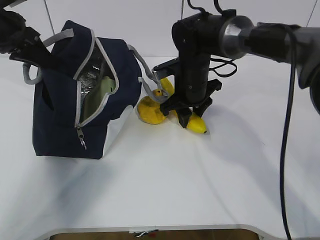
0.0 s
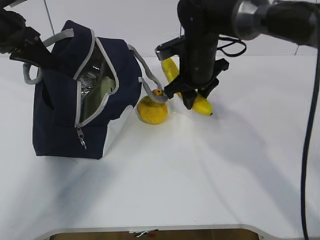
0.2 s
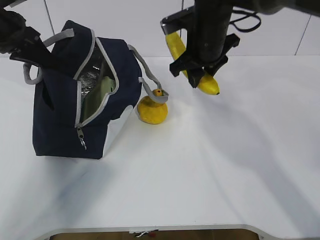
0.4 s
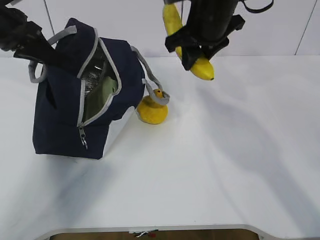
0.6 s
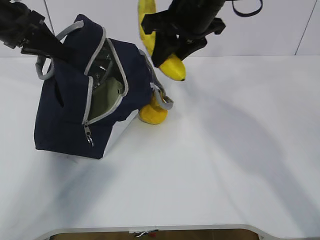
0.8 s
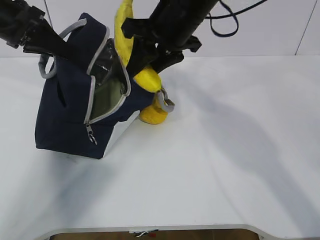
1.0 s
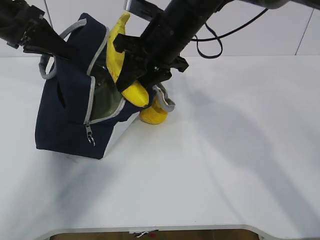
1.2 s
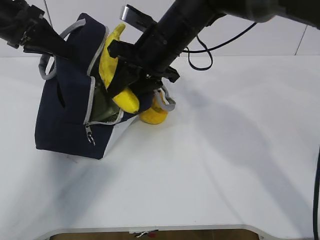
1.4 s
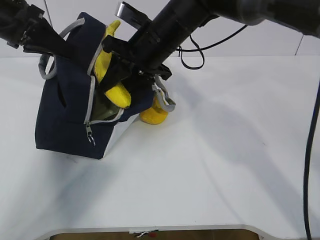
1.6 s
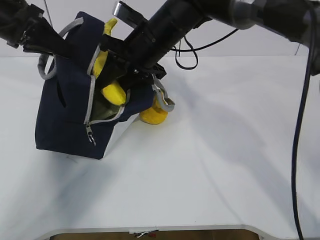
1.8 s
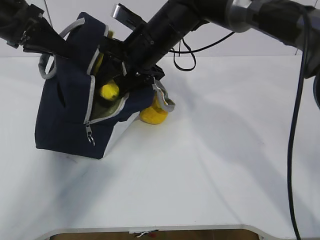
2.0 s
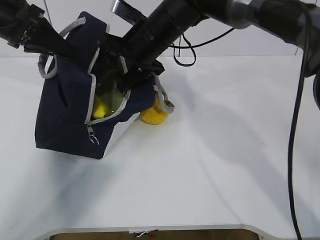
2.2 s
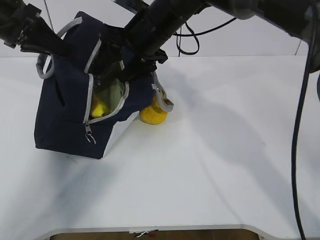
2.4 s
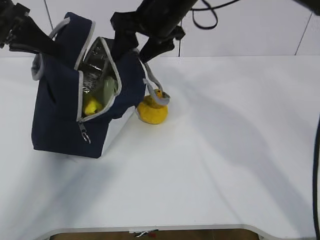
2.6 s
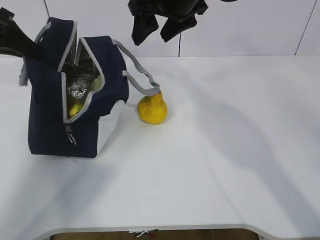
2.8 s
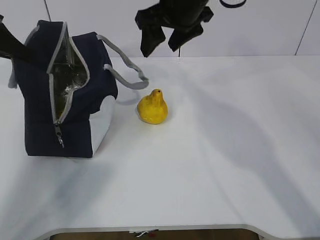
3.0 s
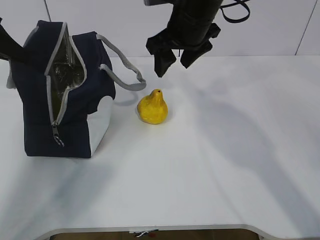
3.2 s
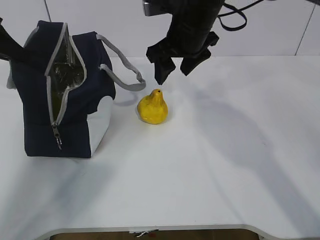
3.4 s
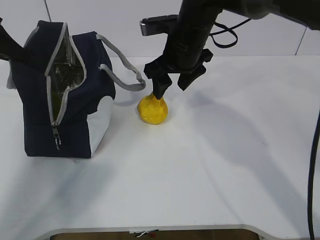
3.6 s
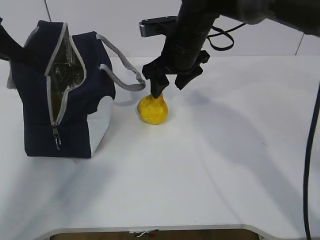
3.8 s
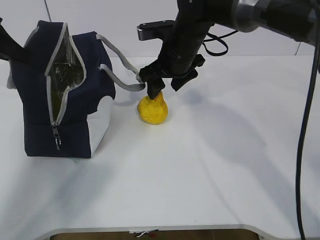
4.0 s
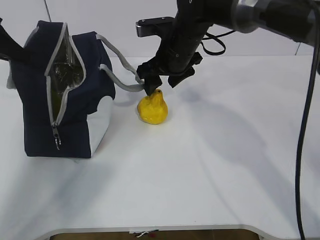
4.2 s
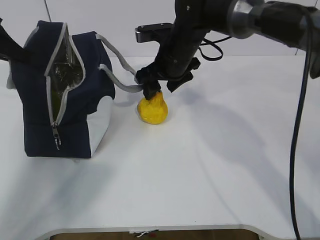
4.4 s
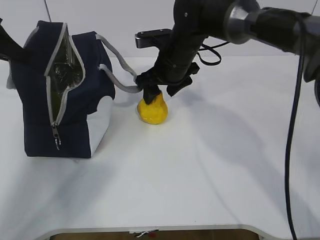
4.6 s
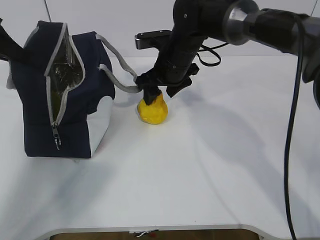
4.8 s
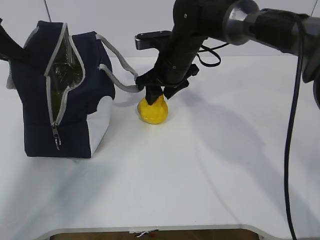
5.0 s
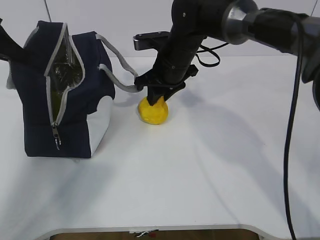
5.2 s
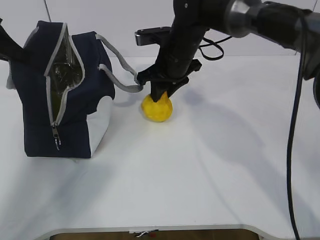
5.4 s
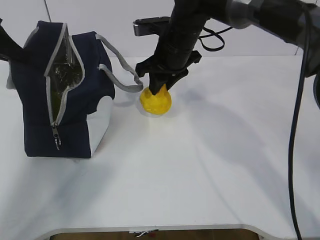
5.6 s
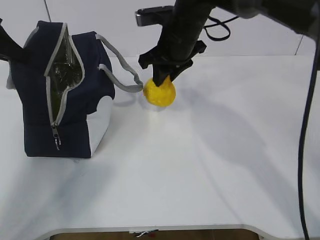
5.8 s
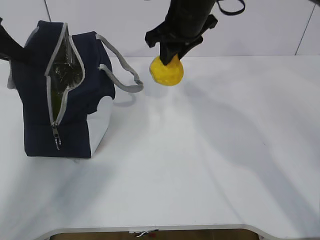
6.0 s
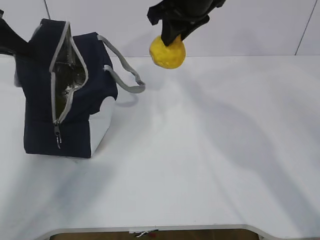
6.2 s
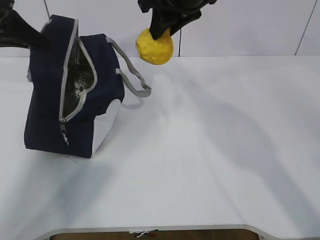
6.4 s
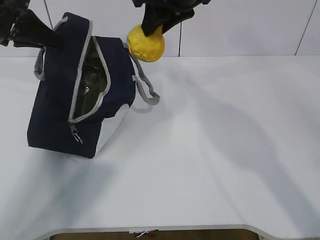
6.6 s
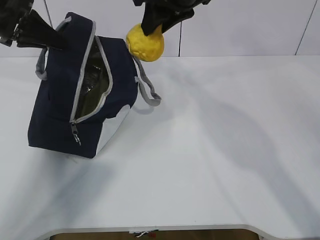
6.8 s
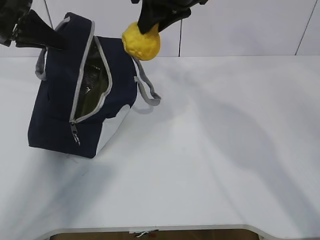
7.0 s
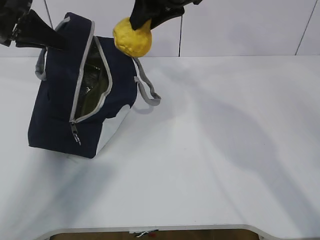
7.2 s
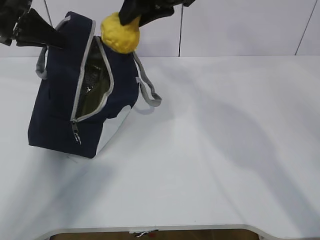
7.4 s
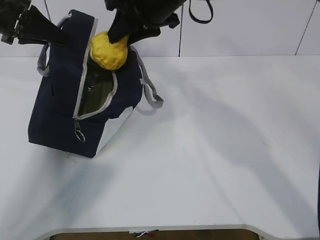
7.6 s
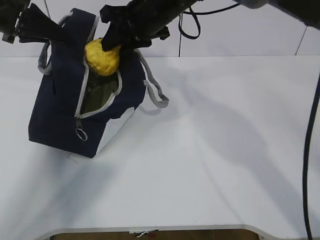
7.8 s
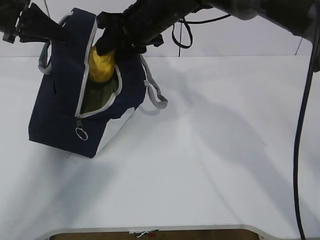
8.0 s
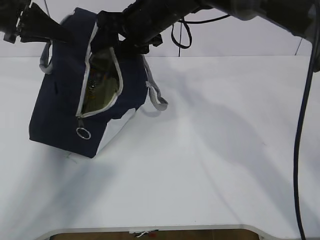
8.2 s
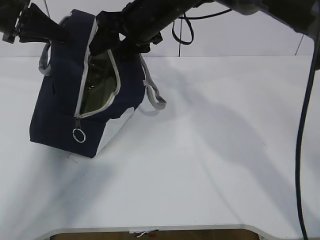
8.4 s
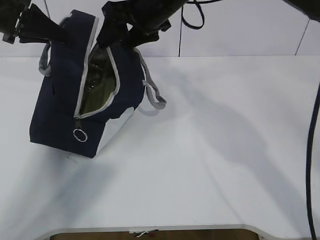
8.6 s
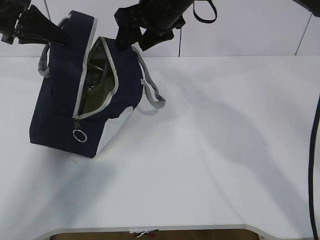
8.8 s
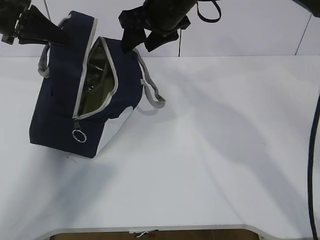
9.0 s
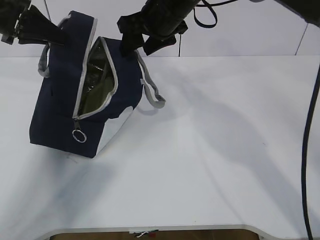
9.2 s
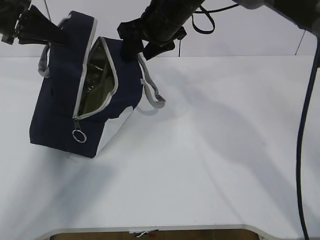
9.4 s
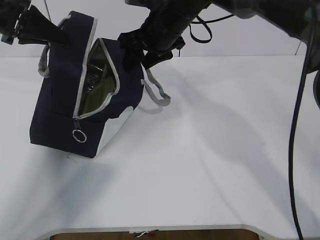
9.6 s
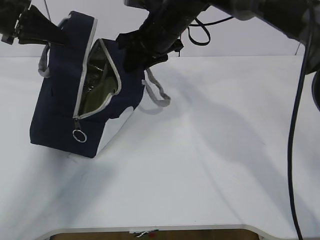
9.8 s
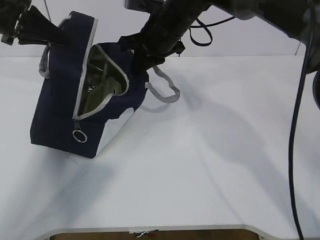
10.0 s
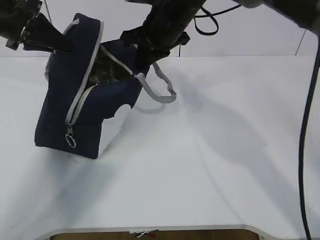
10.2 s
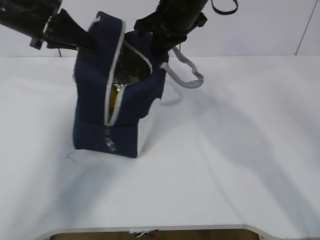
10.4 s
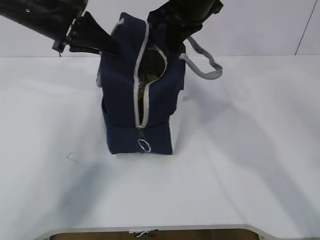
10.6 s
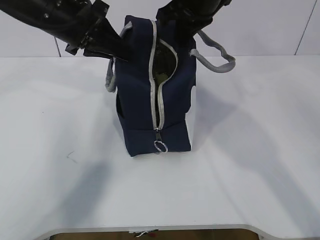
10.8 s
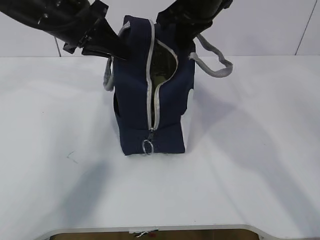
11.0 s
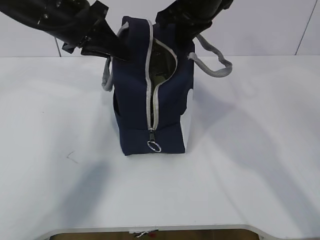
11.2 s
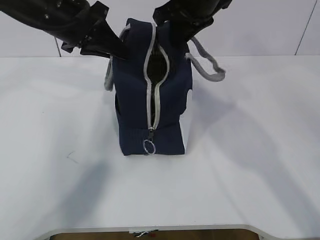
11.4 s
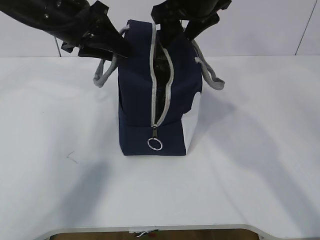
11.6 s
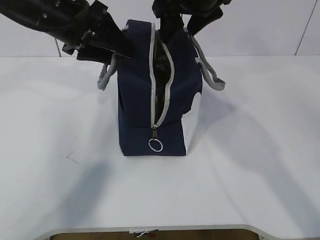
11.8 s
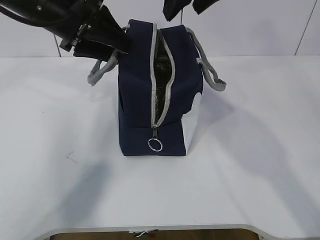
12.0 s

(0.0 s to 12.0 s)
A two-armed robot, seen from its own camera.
Step, 0.4 s - 2.6 s: Secure the lunch bag with your left hand.
Step, 3.0 s - 4.2 s: Grab the lunch bag with your right hand.
Step, 4.4 s - 5.6 s: Move the lunch bag to the right.
0.0 s - 1.6 s: The right gripper heads upward and to the left, covering about 10 cm.
1.6 s - 3.0 s: The left gripper moves to the left, roughly 10 cm, while the right gripper is displaced upward by roughly 5 cm, and opens.
3.0 s - 4.4 s: The right gripper shifts about 10 cm downward.
4.4 s - 6.0 s: The right gripper is displaced upward by about 10 cm, and closes up.
6.0 s - 7.6 s: The left gripper is displaced to the right by some 5 cm.
7.6 s - 9.0 s: The right gripper opens up.
9.0 s - 10.4 s: The right gripper closes. Meanwhile the left gripper travels to the right by some 5 cm.
10.4 s - 12.0 s: The left gripper is displaced to the right by roughly 5 cm, and opens. The right gripper moves upward, about 10 cm, and opens its fingers.

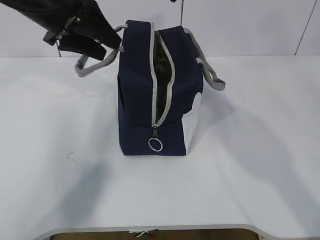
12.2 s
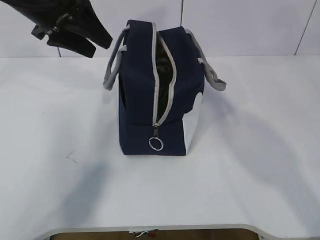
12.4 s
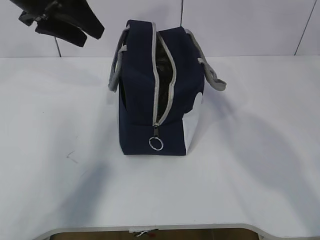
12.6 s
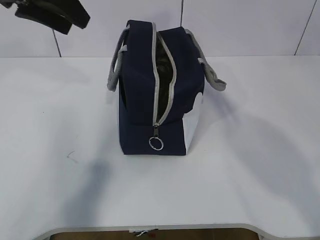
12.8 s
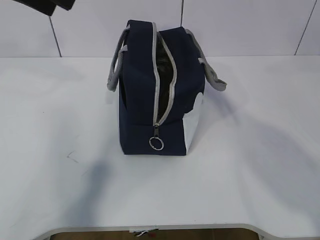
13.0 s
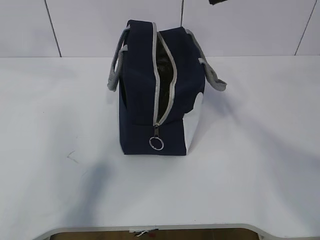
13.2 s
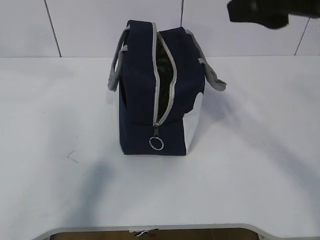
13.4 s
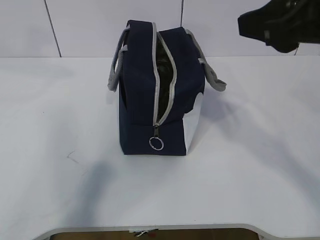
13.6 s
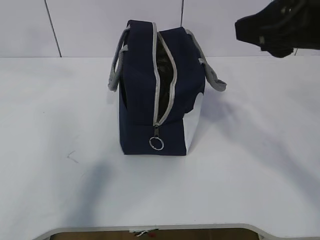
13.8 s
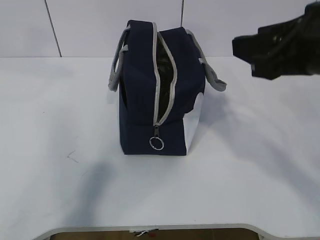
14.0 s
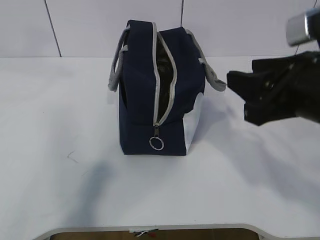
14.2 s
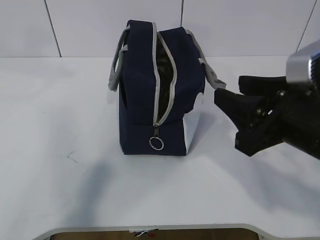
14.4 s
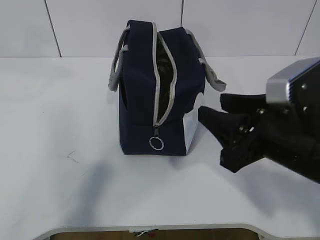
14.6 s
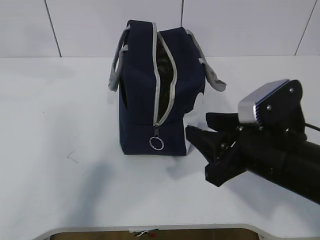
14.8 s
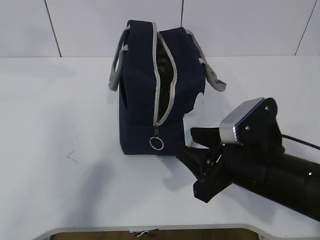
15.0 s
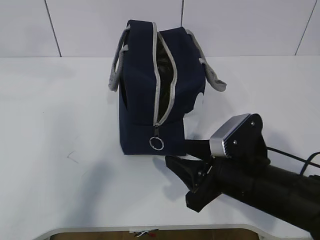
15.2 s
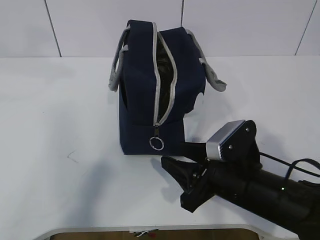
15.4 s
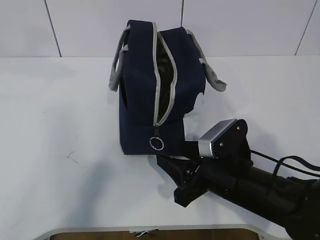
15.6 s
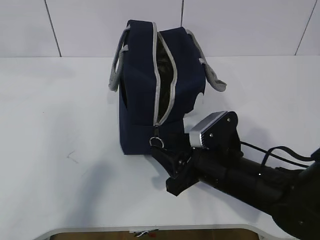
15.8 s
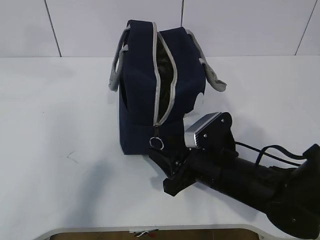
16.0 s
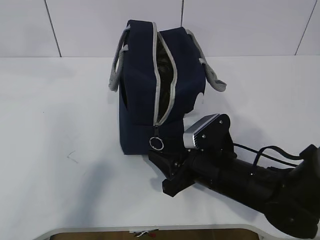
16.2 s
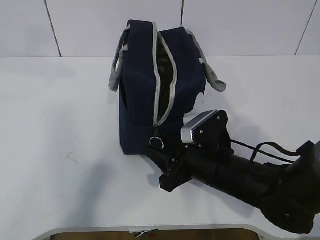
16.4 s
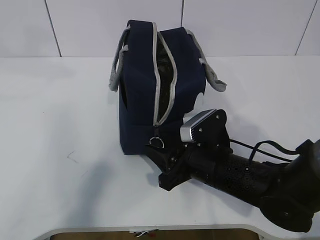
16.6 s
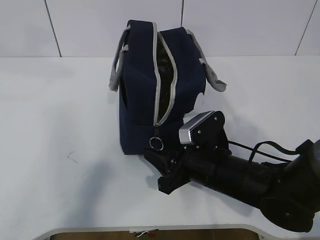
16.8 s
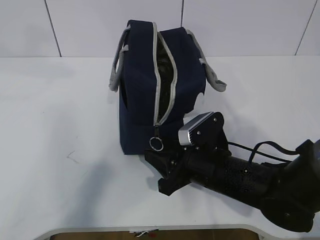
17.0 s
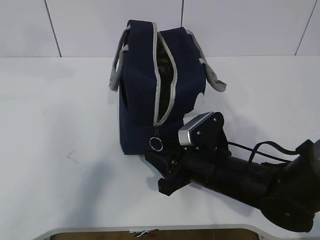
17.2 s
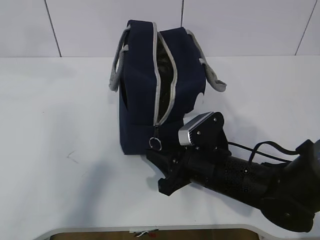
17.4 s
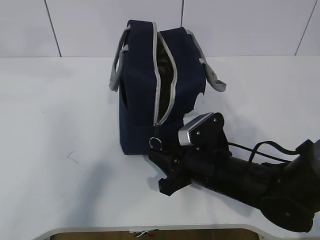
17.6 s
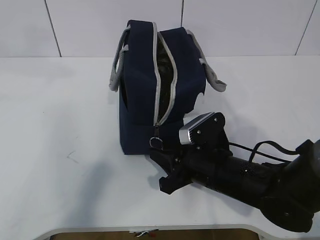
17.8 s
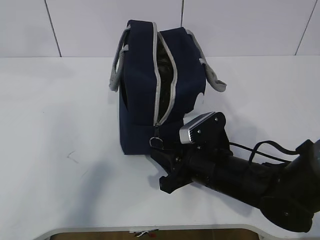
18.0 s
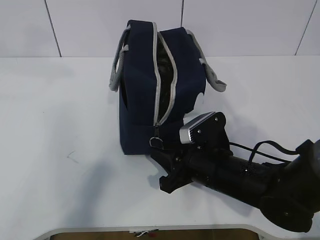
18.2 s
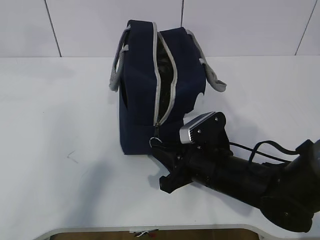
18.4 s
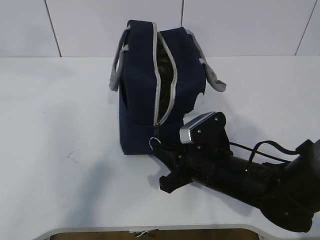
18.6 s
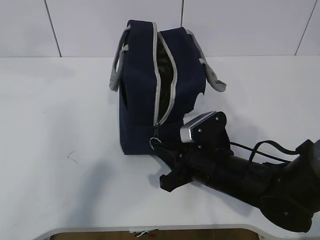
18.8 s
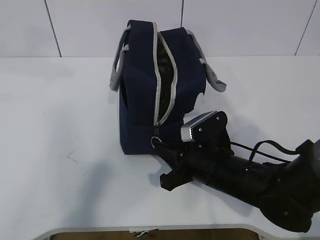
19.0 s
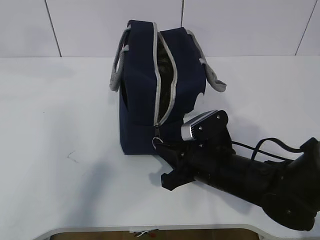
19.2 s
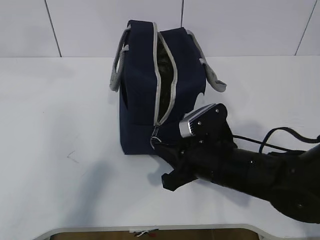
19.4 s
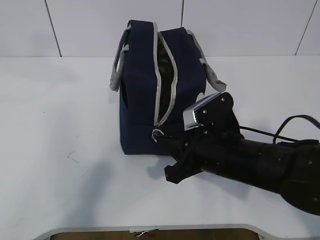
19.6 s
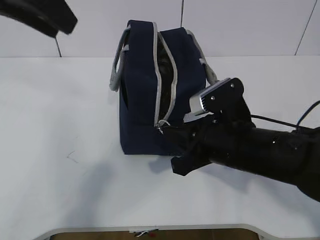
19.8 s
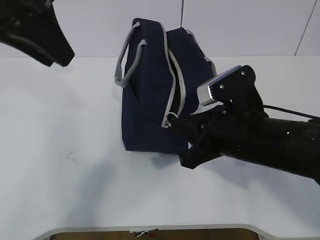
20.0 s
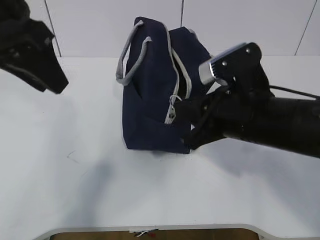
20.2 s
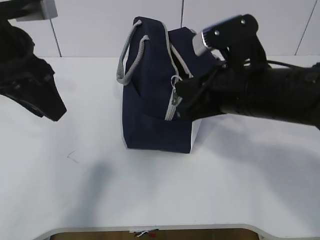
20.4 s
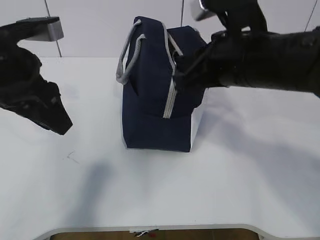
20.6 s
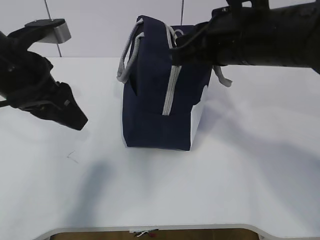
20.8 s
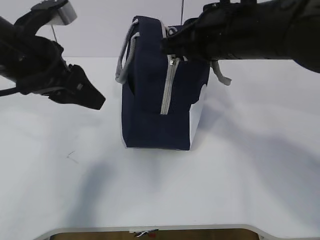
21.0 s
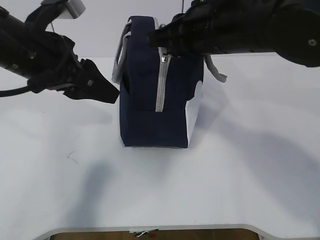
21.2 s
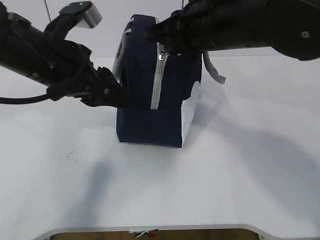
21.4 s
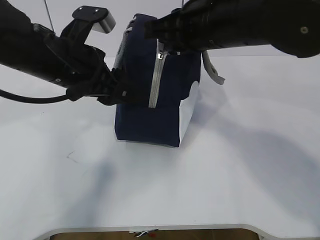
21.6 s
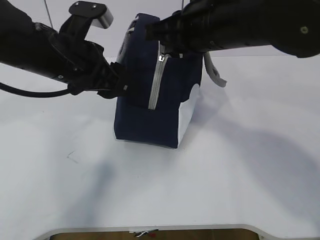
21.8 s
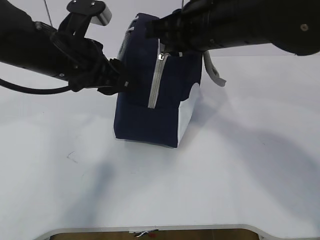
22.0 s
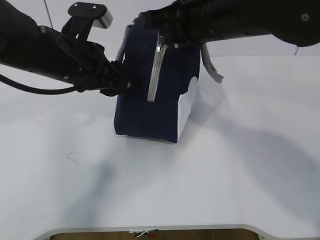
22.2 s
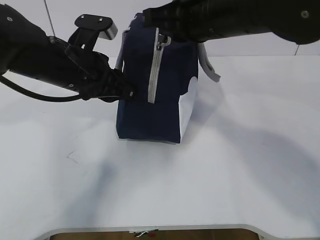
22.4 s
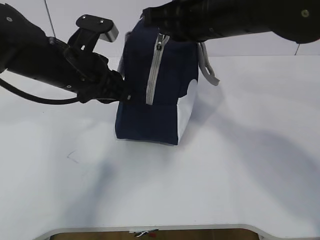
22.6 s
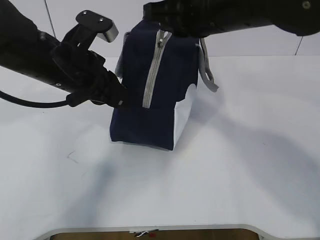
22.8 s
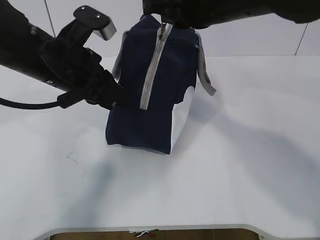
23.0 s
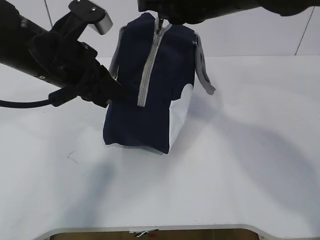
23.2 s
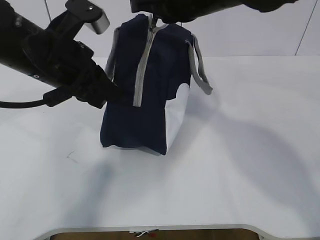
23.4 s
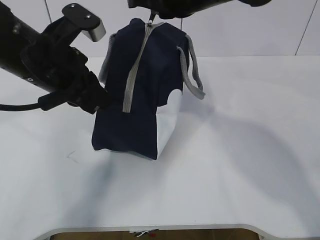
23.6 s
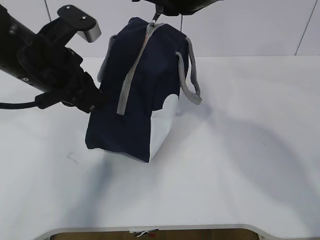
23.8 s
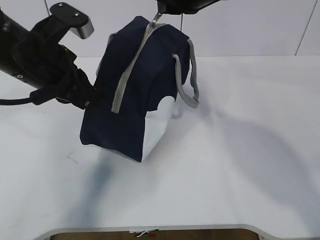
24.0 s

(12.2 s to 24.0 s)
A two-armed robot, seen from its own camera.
Step, 12.2 s - 19.2 s: Grab the lunch bag with your left hand.
Step, 19.4 s - 23.0 s: Pull the zipper with your right hand.
Step, 23.2 s - 23.4 s: Grab the lunch bag with your left hand.
12.2 s - 13.6 s: The right gripper shifts some 15 cm backward and to the right; the left gripper moves upward and backward, about 15 cm.
13.6 s - 15.2 s: The right gripper heads downward, covering roughly 25 cm.
15.2 s - 16.6 s: The right gripper ends up approximately 5 cm from where it was.
16.6 s - 18.2 s: Both grippers stay about where they are.
18.2 s - 19.6 s: The right gripper closes up.
19.6 s - 21.0 s: The left gripper moves downward, roughly 15 cm; the right gripper goes approximately 15 cm upward.
21.0 s - 22.6 s: The left gripper ends up approximately 10 cm from where it was, and closes.
22.6 s - 24.0 s: The left gripper ends up about 5 cm from where it was.
